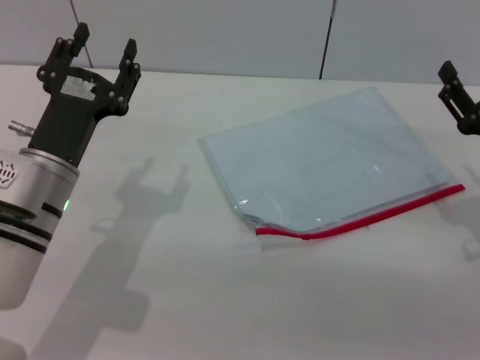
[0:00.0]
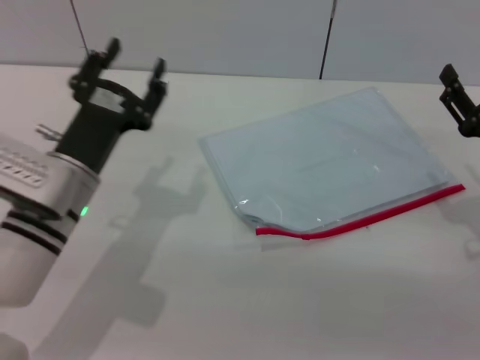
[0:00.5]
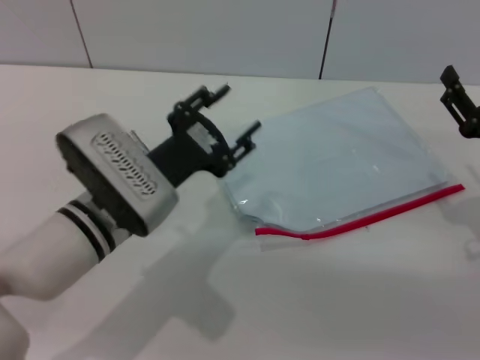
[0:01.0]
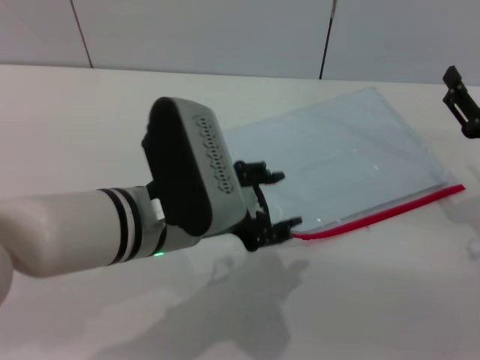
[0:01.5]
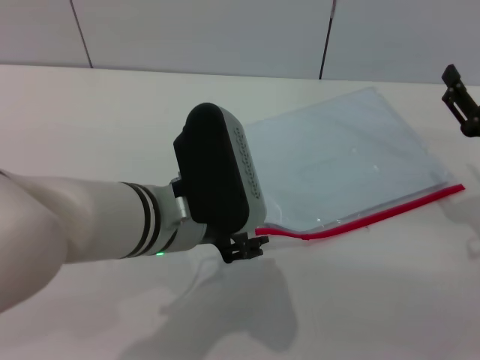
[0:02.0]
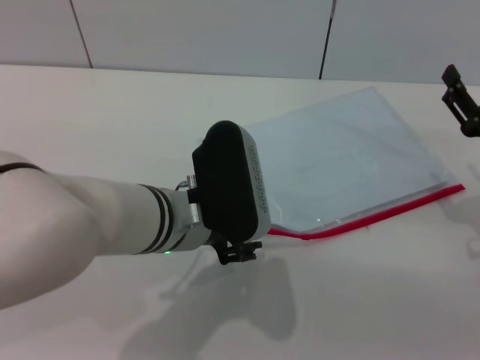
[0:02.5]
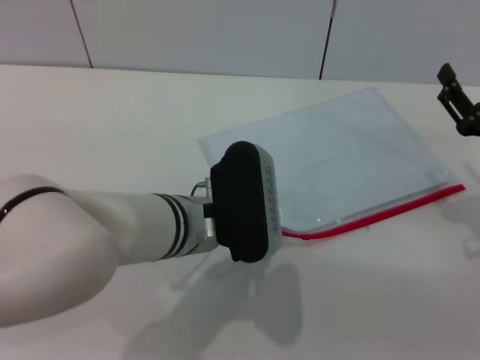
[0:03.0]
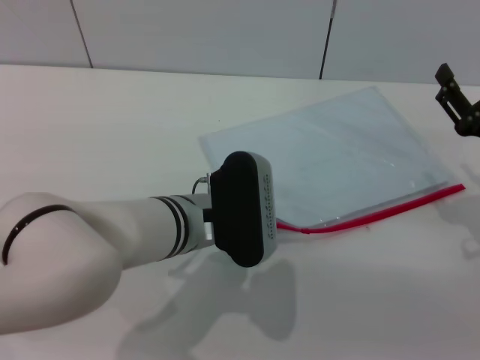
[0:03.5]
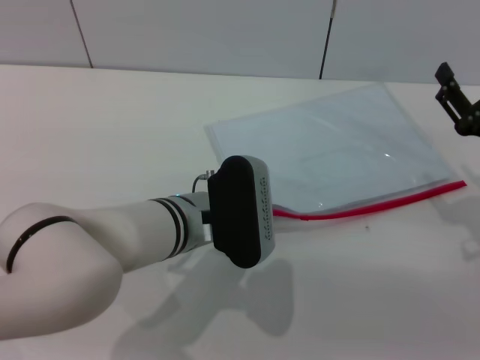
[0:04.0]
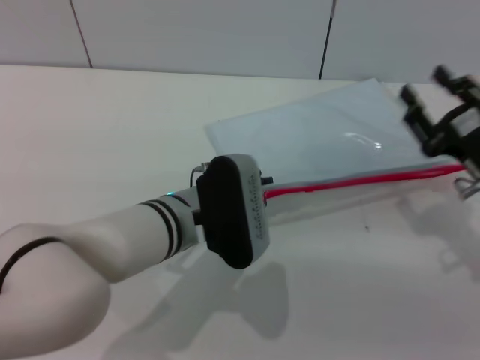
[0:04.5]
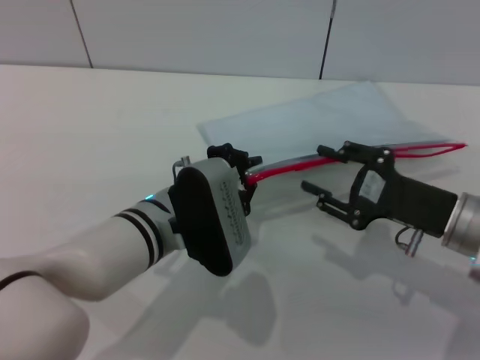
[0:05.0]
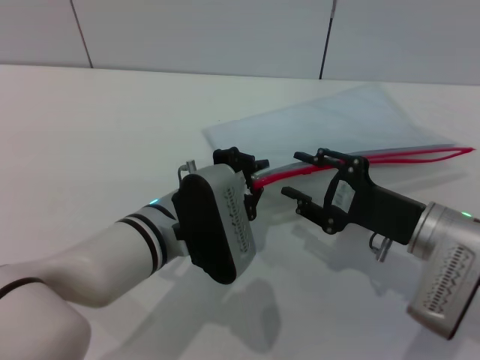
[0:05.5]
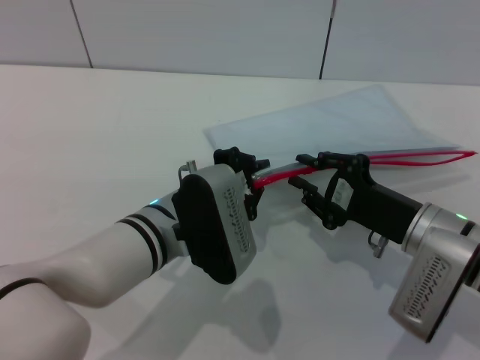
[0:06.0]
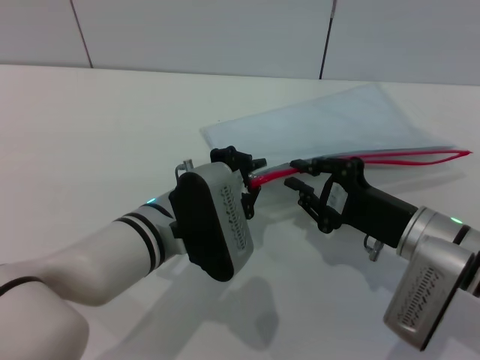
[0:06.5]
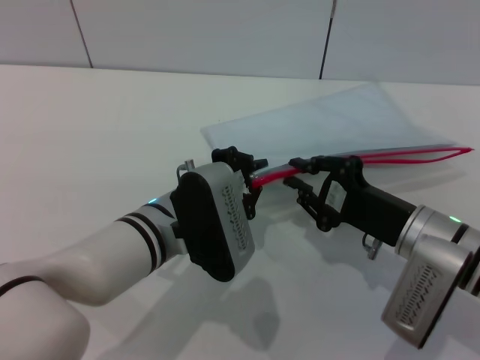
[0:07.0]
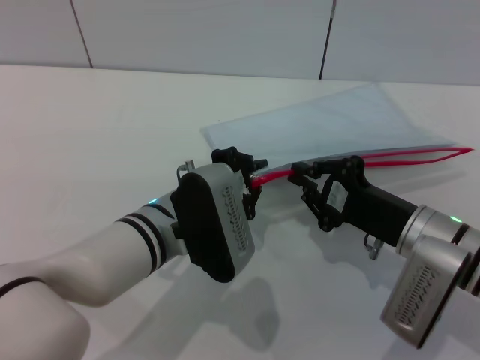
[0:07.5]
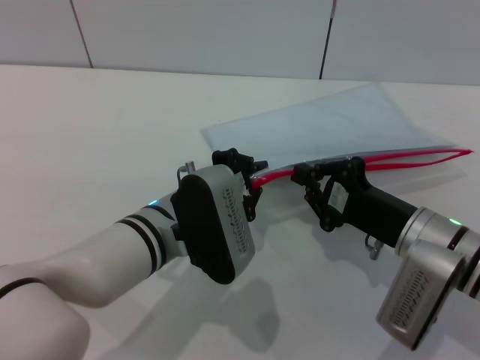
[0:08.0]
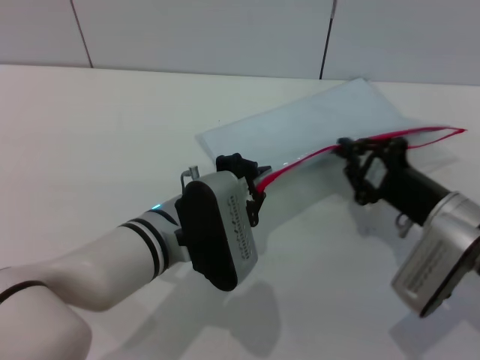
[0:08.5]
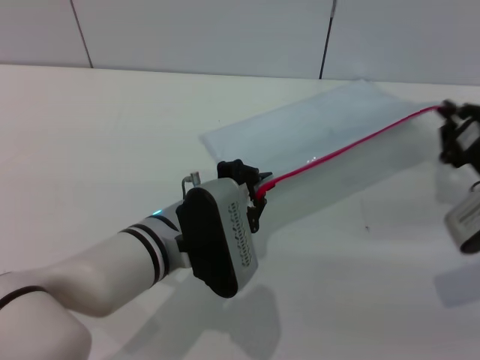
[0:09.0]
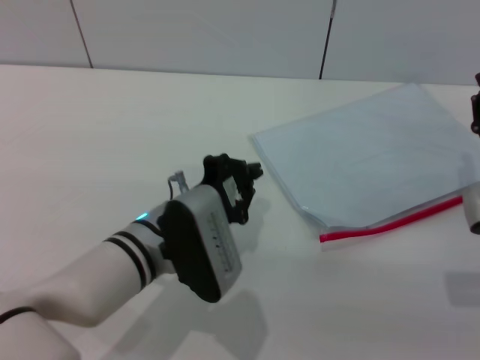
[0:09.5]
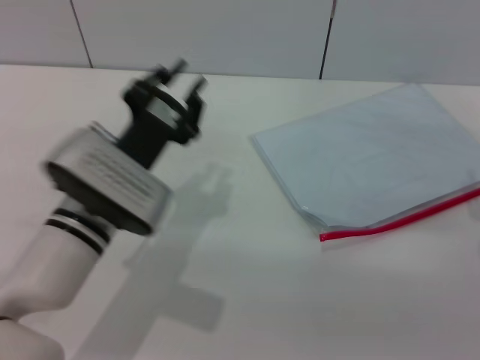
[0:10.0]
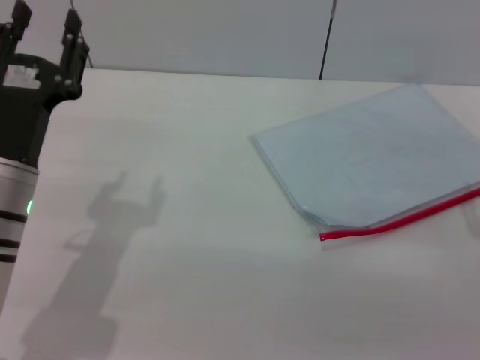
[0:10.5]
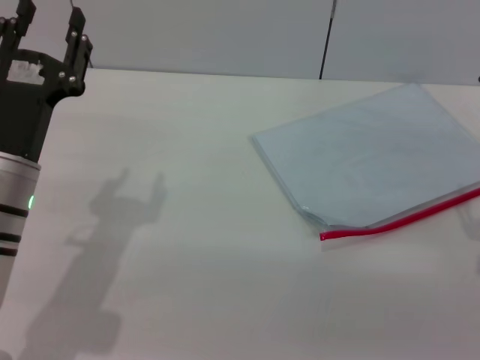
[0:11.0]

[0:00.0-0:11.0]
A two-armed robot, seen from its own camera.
Step, 0:00.0 to 0:04.5: Pick up the transparent plastic bag with the left gripper.
Step, 0:05.0 to 0:09.5: Pulling up the zipper on the transparent plastic bag with the right gripper to close it.
Step, 0:10.0 to 0:10.5: Place the transparent plastic bag.
0:00.0 to 0:02.0: The left gripper moves to the right and upward, about 15 cm.
0:02.0 to 0:03.5: The left gripper travels downward by approximately 5 cm.
0:03.5 to 0:05.5: The left gripper closes; the right gripper shifts some 10 cm to the left.
0:05.5 to 0:07.5: The right gripper closes.
0:07.5 to 0:09.0: The right gripper travels to the right by approximately 10 cm.
0:09.0 to 0:11.0: The right gripper moves backward, about 5 cm, and opens its fingers. The left gripper heads to the left, covering approximately 15 cm, and opens its fingers.

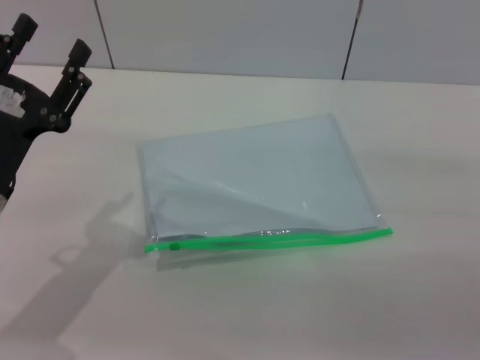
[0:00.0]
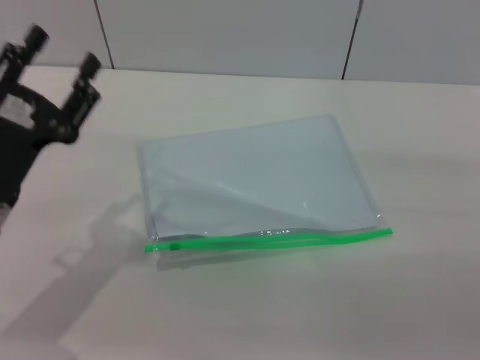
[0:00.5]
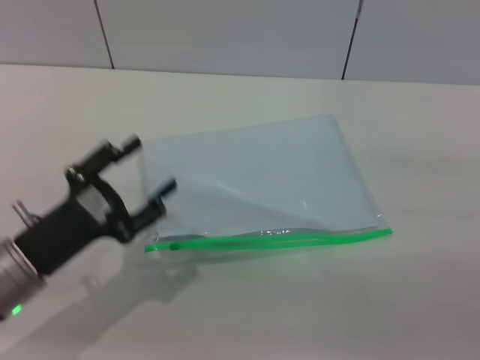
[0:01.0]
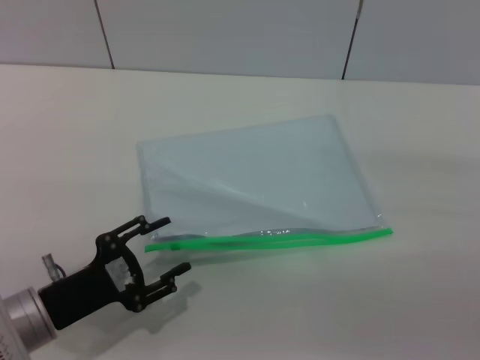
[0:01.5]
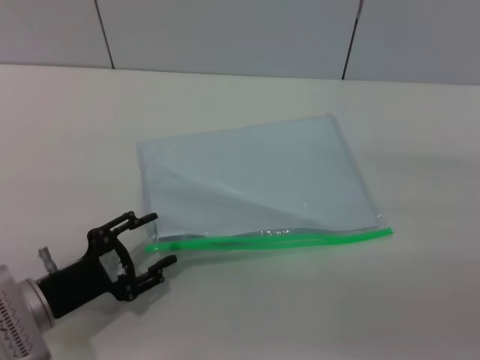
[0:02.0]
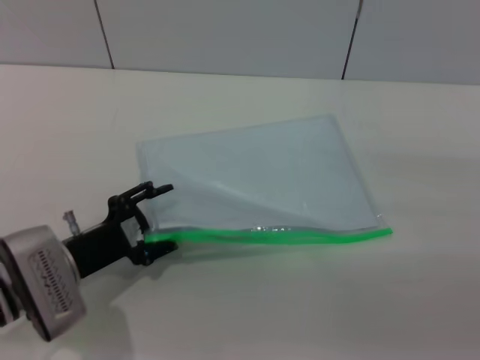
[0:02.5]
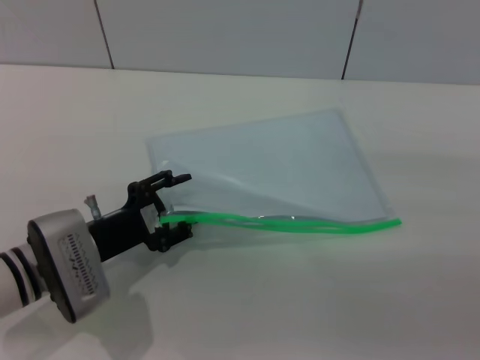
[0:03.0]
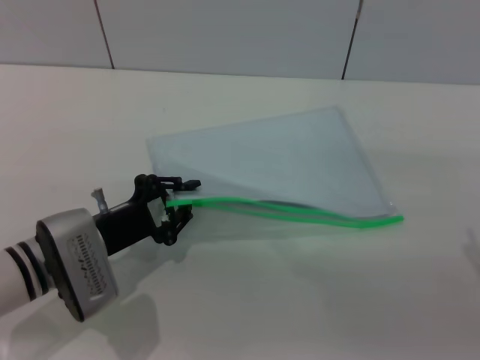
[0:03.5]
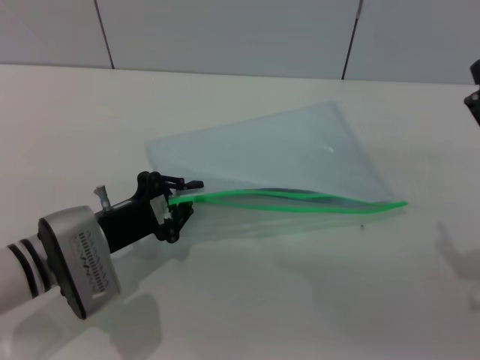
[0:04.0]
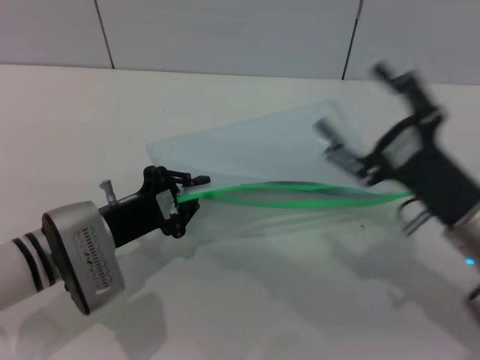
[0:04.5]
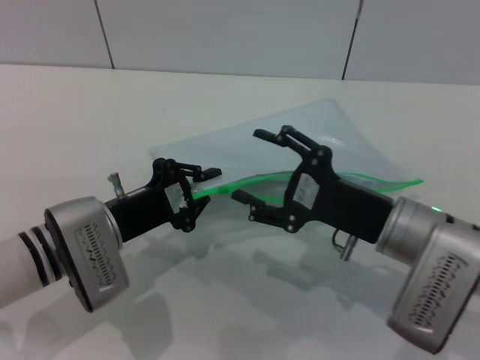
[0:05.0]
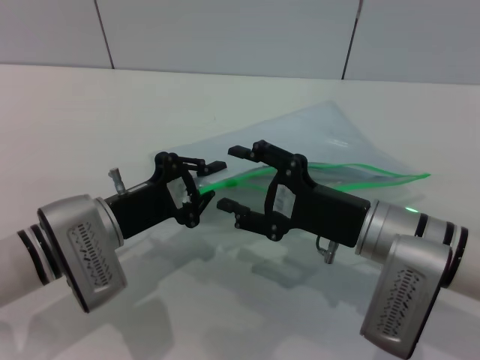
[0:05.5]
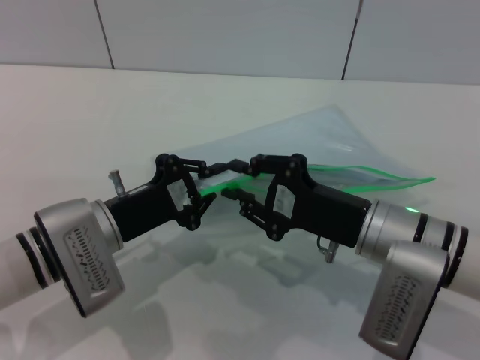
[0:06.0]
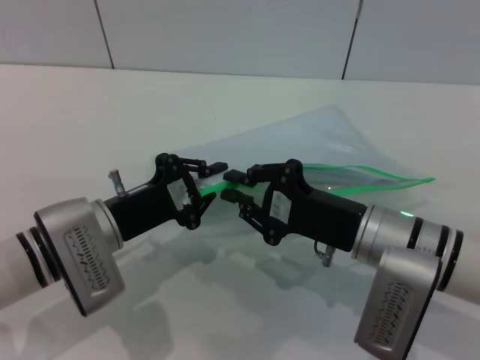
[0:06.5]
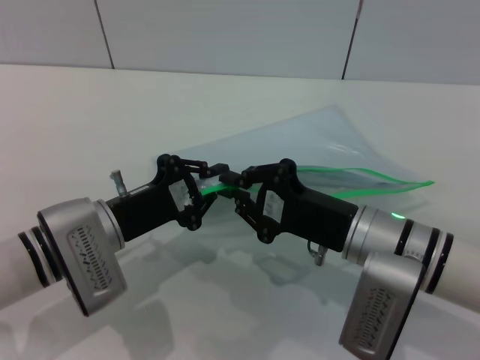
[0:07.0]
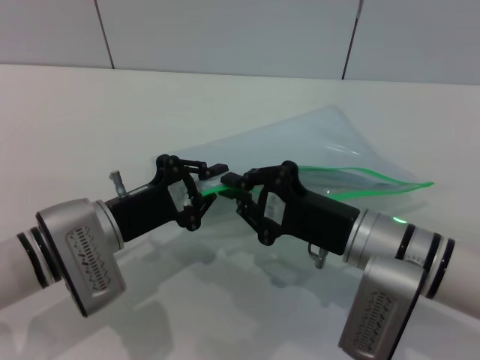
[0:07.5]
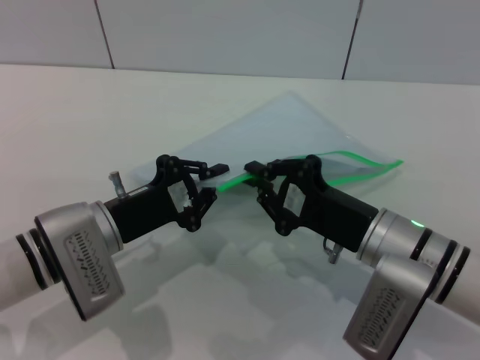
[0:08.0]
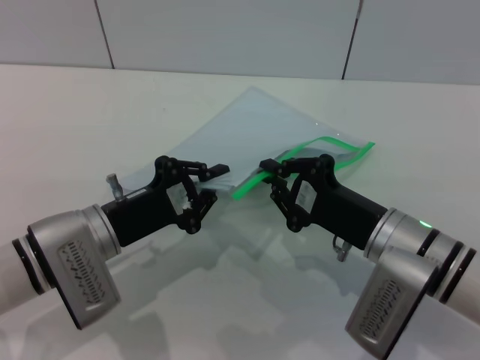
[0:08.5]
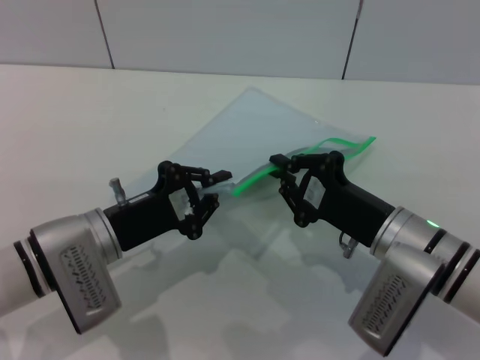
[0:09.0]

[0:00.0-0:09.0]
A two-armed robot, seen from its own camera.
Step, 0:00.0 to 0:04.0: Pick up the transparent plastic bag with the left gripper.
0:00.0 to 0:02.0: The left gripper moves downward, about 10 cm.
0:02.0 to 0:04.5: The left gripper shifts some 5 cm forward, and closes, while the right gripper heads to the left, covering some 10 cm.
0:04.5 to 0:07.0: The right gripper travels to the left by about 10 cm, and closes up.
0:07.0 to 0:09.0: The grippers stay close to where they were, moving slightly.

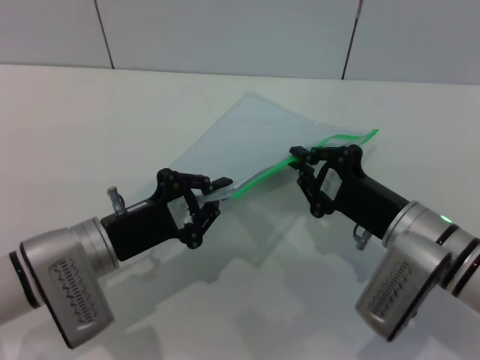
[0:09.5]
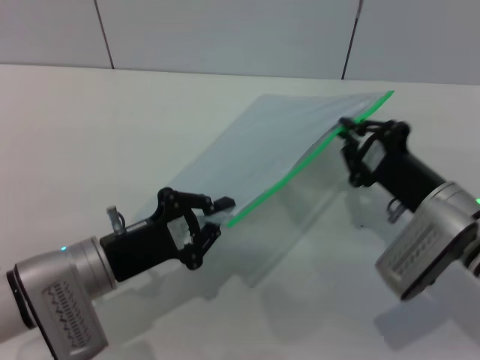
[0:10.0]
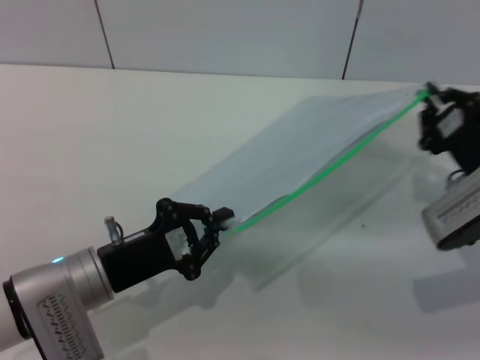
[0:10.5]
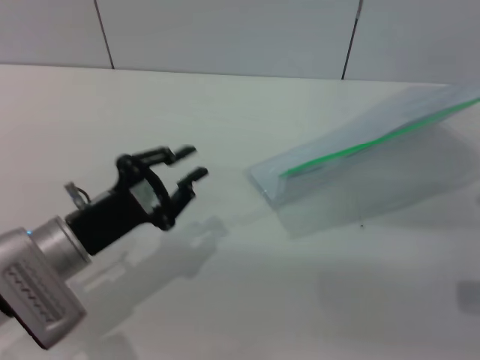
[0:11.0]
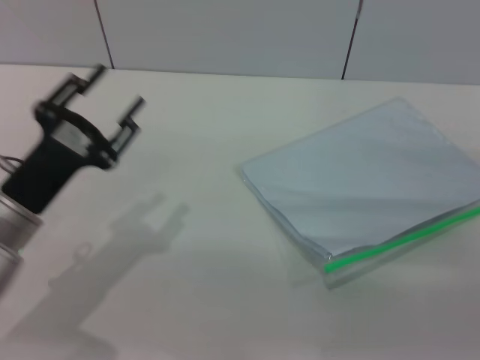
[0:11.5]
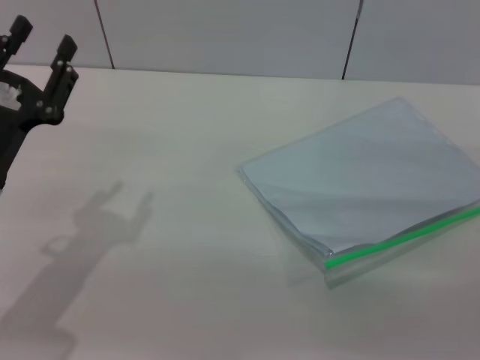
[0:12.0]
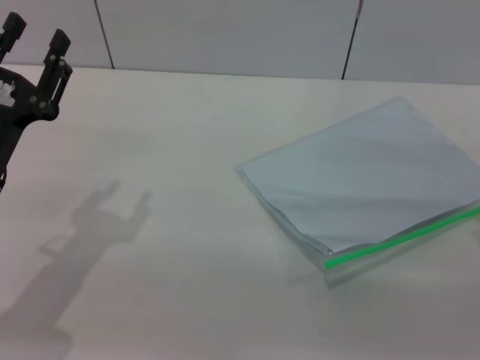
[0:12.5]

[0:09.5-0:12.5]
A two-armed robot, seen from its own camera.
0:09.5 to 0:11.0: The right gripper goes about 10 cm to the right.
0:11.0 to 0:12.5: The left gripper travels to the left by some 5 cm, and opens its fingers; the right gripper goes about 5 cm backward, and opens.

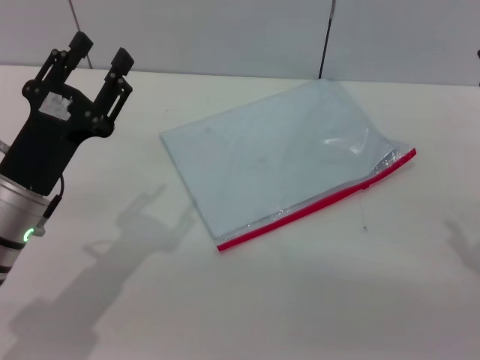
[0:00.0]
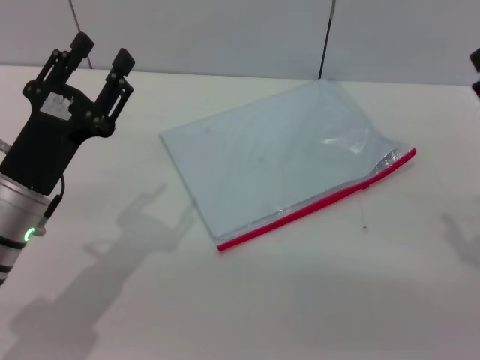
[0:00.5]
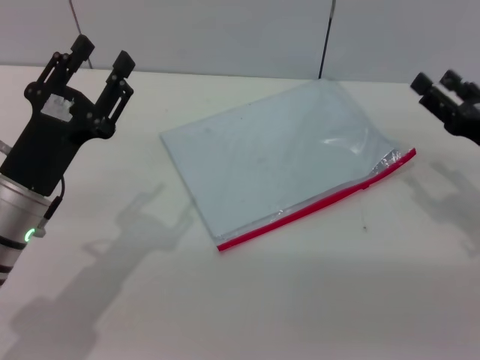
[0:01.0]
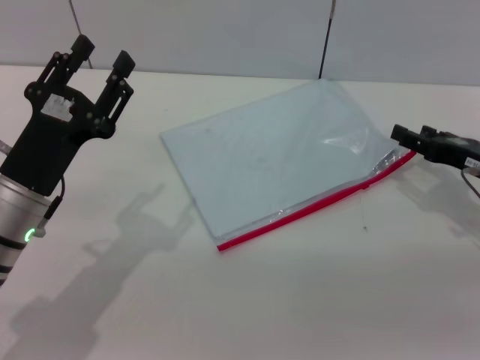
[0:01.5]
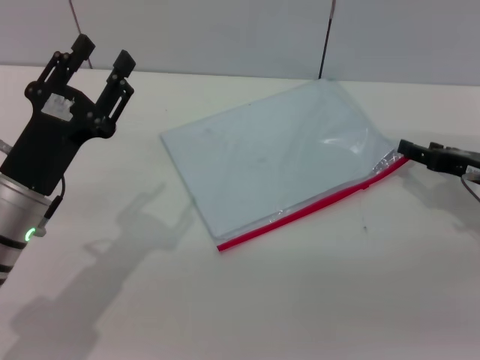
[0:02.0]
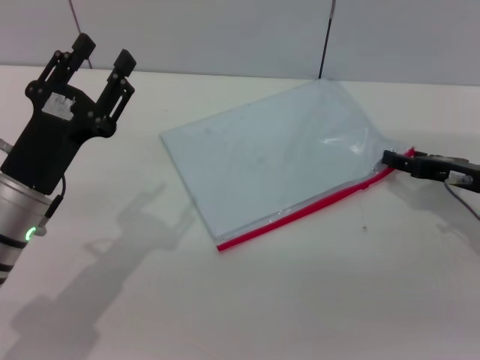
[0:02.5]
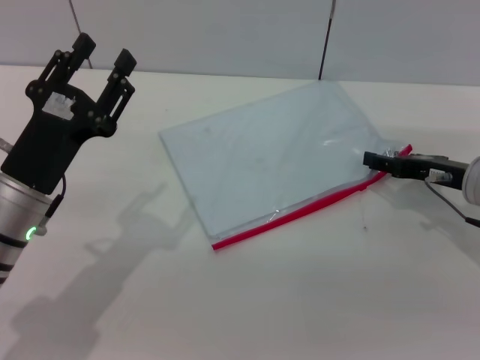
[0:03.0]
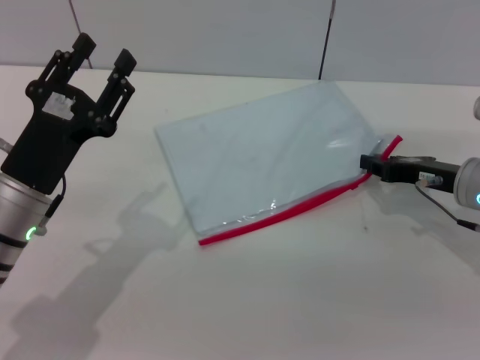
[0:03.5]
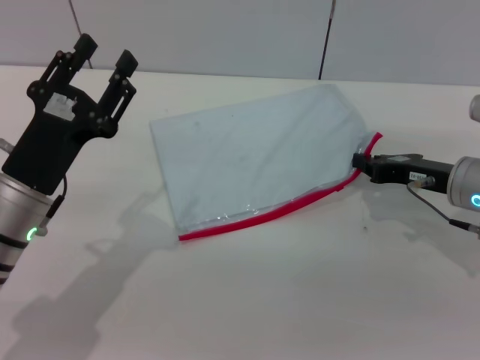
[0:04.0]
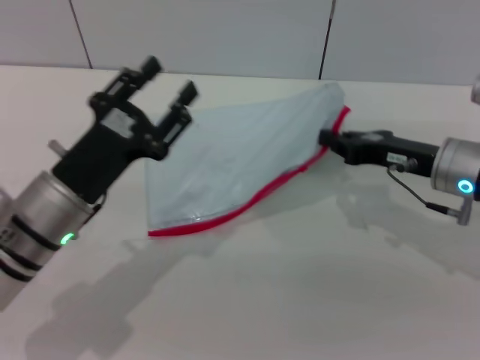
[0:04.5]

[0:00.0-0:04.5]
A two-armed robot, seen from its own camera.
0:00.0 to 0:02.0: The right gripper is displaced forward by about 10 cm.
0:02.0 to 0:04.5: The right gripper shifts some 10 cm to the left, and closes up.
